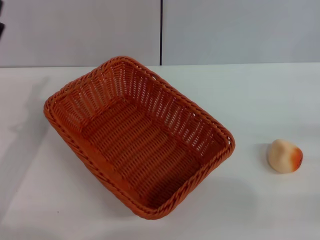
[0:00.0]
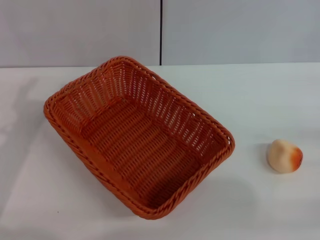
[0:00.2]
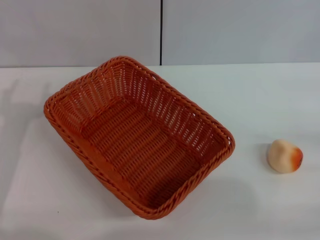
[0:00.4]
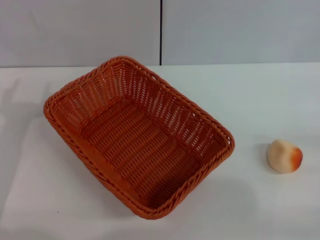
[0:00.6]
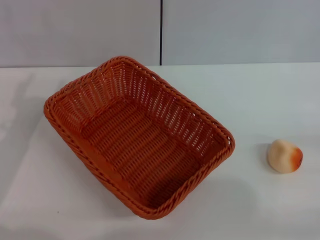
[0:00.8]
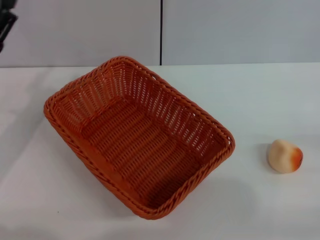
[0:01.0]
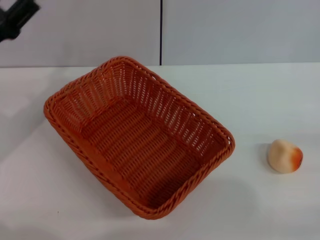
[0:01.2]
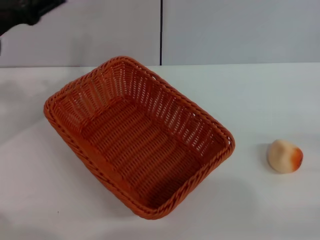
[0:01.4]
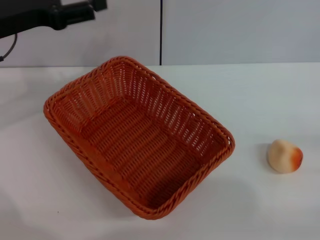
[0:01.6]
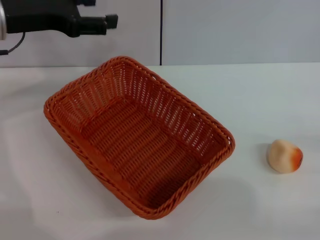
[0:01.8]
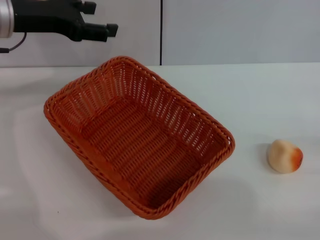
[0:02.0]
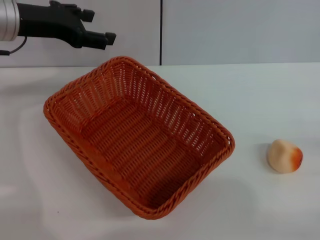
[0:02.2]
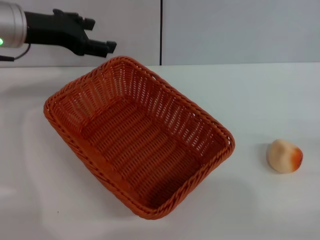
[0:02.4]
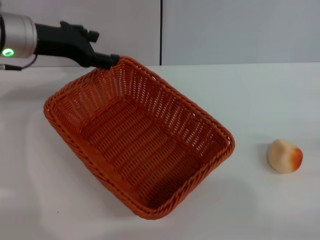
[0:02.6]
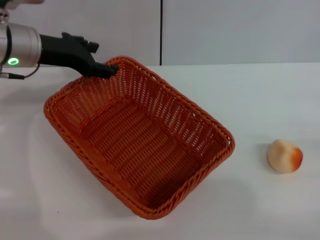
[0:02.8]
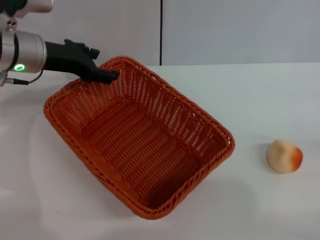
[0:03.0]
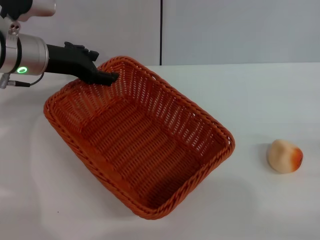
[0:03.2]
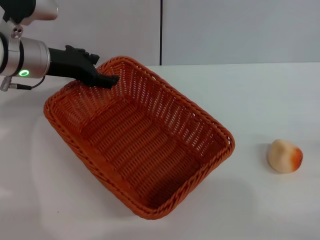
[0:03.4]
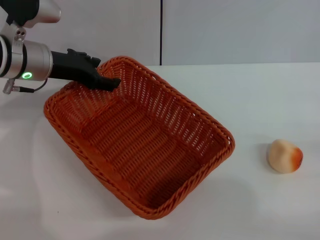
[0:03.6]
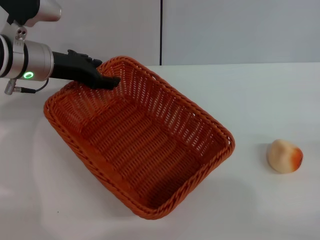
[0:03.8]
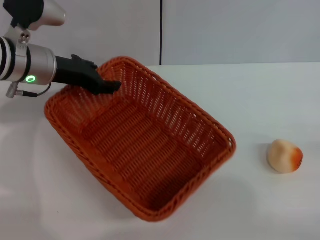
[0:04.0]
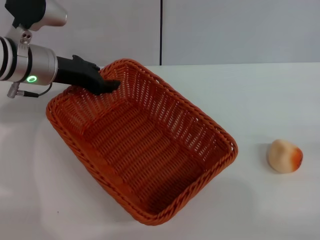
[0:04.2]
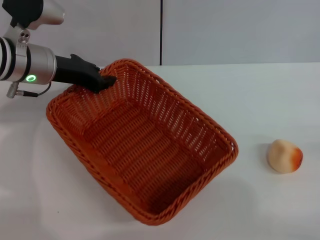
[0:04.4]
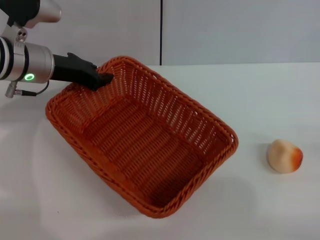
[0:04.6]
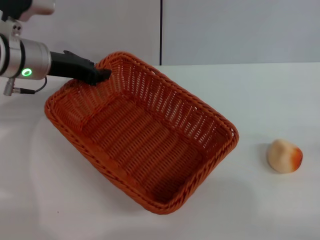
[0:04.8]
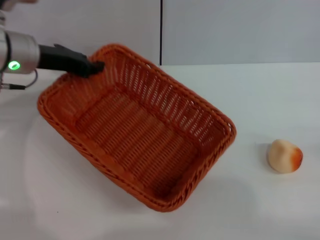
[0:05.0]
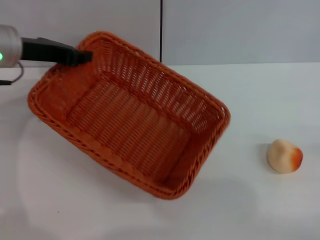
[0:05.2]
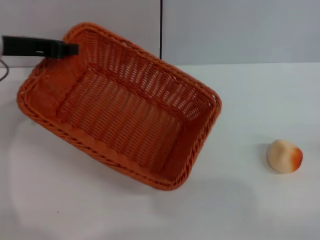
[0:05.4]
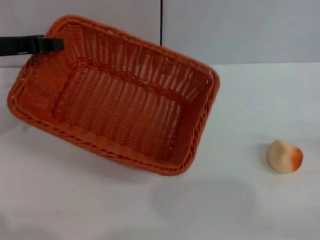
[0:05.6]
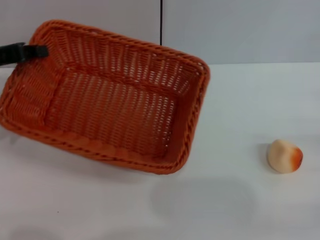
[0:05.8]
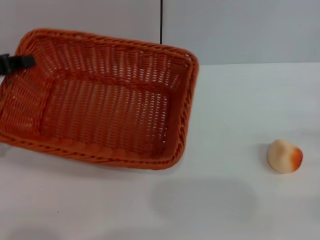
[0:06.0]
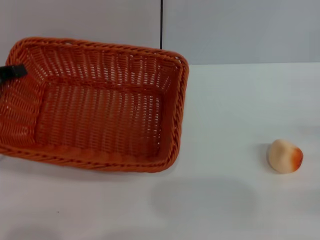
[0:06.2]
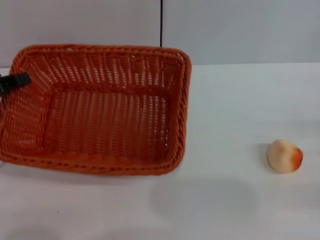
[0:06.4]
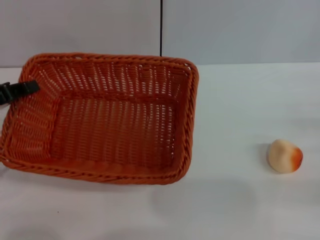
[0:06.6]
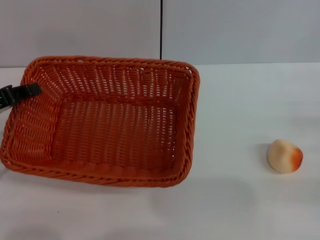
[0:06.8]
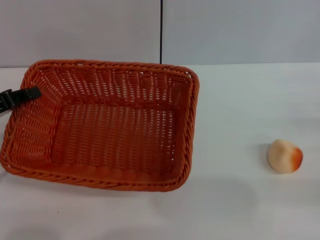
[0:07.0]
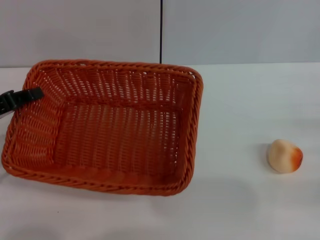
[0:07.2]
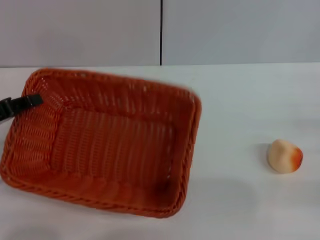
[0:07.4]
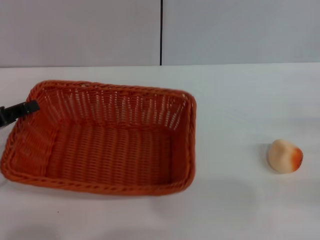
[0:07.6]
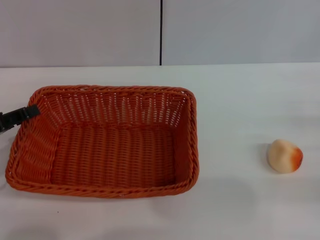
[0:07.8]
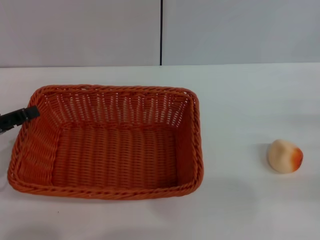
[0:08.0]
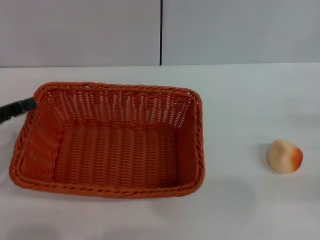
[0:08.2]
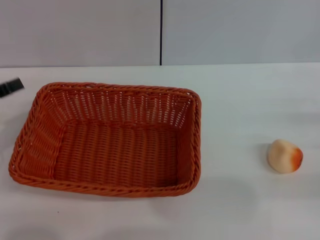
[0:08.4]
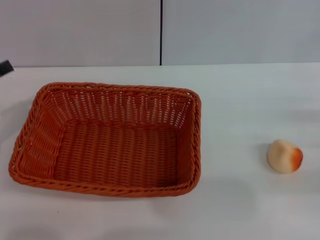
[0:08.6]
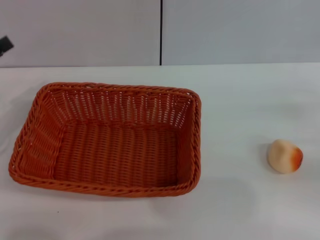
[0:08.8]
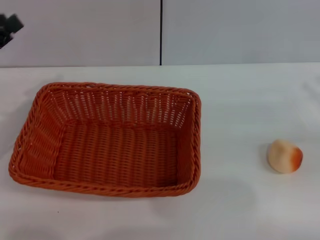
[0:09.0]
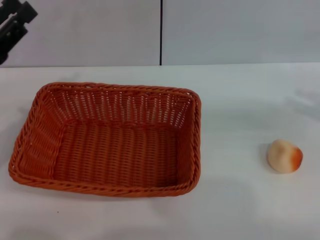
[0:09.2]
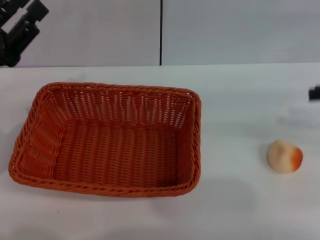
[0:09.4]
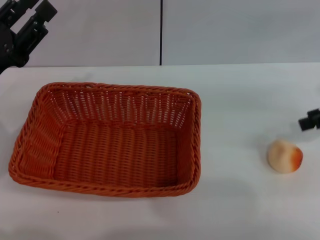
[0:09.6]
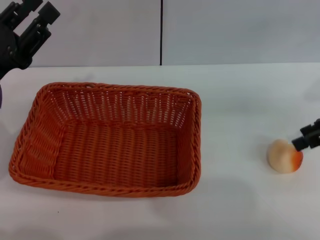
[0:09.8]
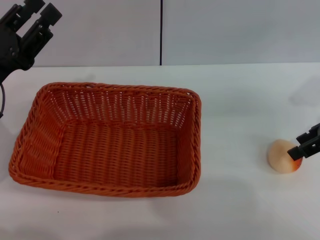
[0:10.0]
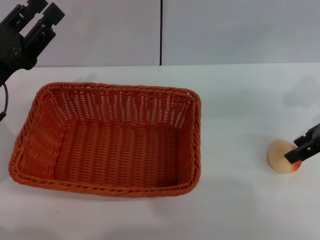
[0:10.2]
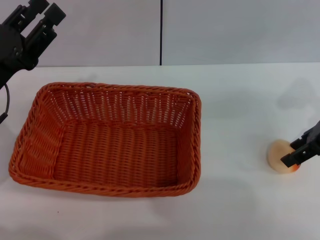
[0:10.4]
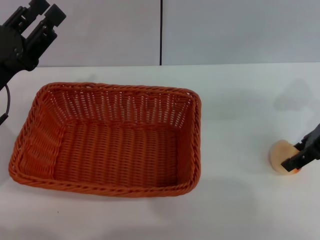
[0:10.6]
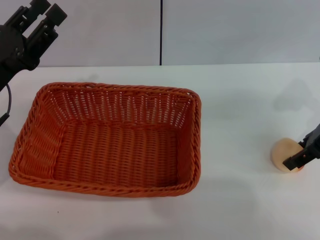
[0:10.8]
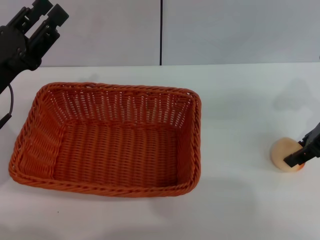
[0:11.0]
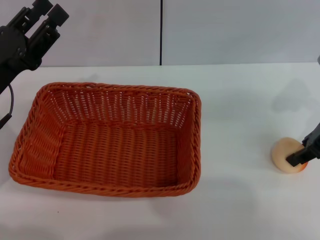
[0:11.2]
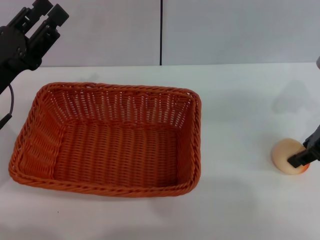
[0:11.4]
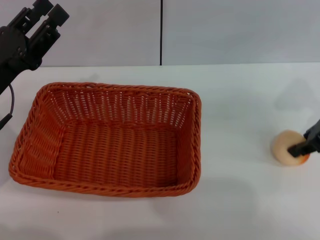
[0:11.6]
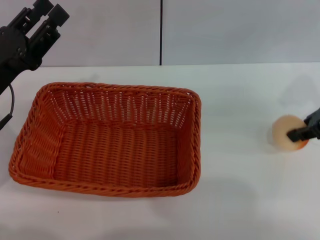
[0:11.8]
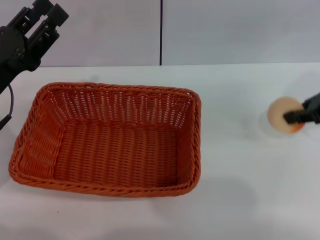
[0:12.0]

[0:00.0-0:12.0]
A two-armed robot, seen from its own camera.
Step, 0:00.0 to 0:08.4: Move the basket to the center of view with the left gripper.
Step, 0:08.6 to 0:11.6: Pick up the egg yolk pastry with the right gripper.
0:00.0 to 0:01.6: The left gripper shifts roughly 15 cm forward and upward.
0:01.6 to 0:03.0: The left gripper shifts by approximately 5 cm.
0:03.0 to 0:04.4: The left gripper closes its fingers.
0:04.4 to 0:06.0: The left gripper shifts some 15 cm to the left and backward.
0:06.0 to 0:07.6: The left gripper heads downward and backward, covering about 10 cm.
0:07.6 to 0:09.0: The right gripper travels upward by roughly 10 cm.
0:09.0 to 0:10.4: The right gripper moves to the left and forward, some 15 cm; the left gripper goes approximately 5 cm to the right.
0:10.4 to 0:12.0: The right gripper closes its fingers.

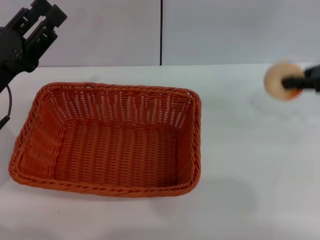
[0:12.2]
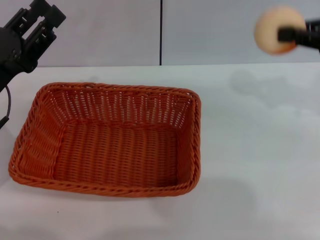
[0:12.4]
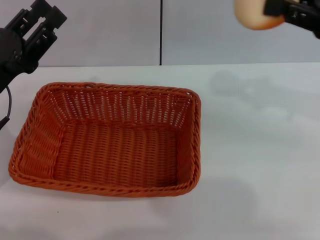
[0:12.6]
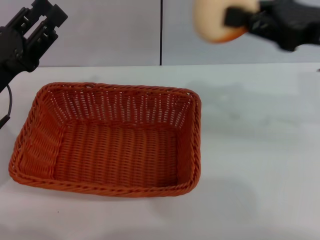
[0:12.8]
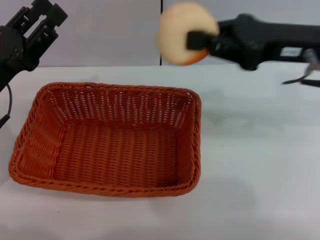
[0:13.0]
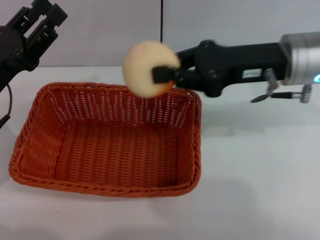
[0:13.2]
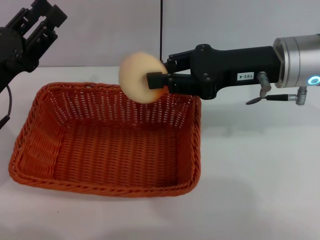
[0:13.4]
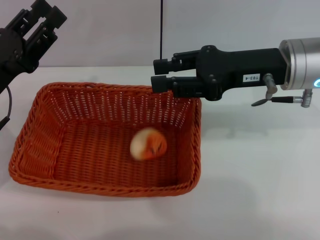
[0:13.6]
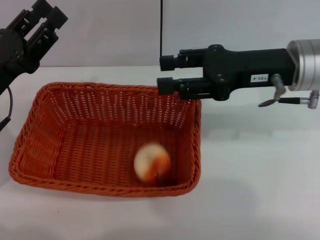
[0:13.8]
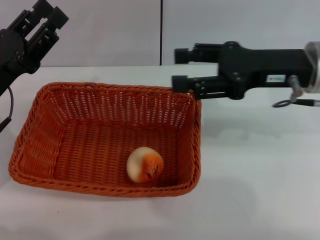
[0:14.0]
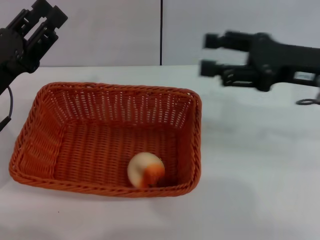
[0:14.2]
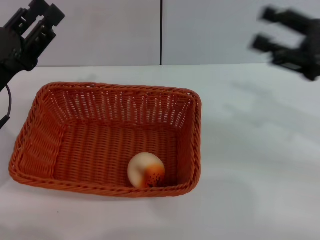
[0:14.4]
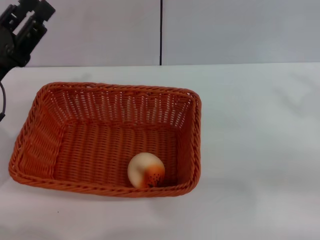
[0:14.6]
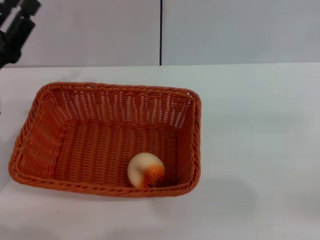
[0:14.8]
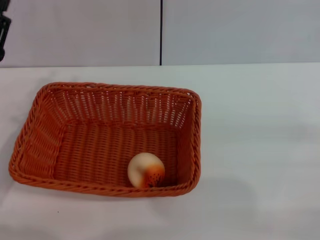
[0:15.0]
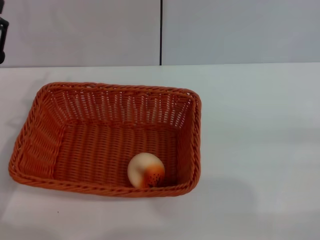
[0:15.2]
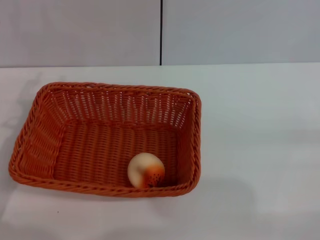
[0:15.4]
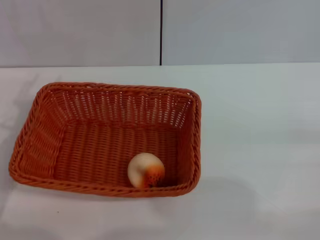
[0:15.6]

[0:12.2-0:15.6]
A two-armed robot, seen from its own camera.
Step, 0:12.2 to 0:13.6: Place the egg yolk pastry into the basket with the right gripper.
0:12.2 to 0:13.8: The right gripper travels to the left by about 10 cm, and opens its fingers.
0:13.8 to 0:15.6: The right gripper moves to the right, backward and downward, roughly 25 cm, and opens.
